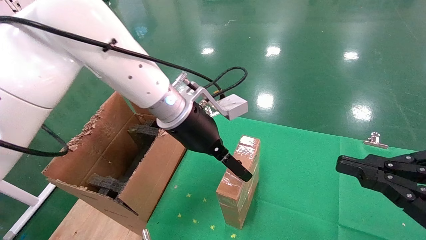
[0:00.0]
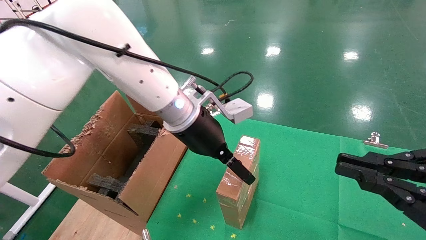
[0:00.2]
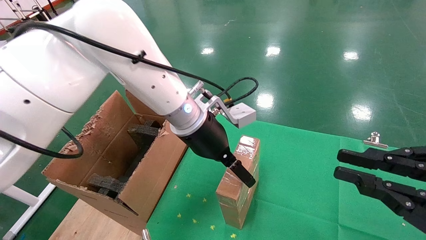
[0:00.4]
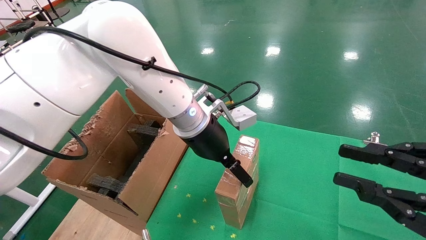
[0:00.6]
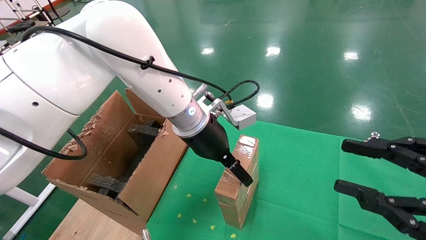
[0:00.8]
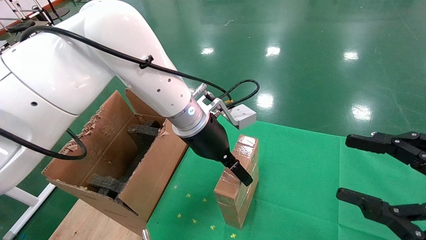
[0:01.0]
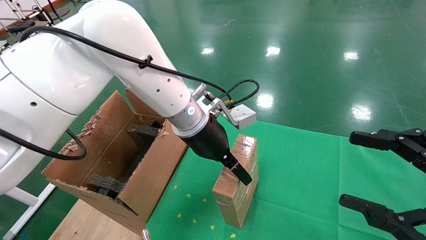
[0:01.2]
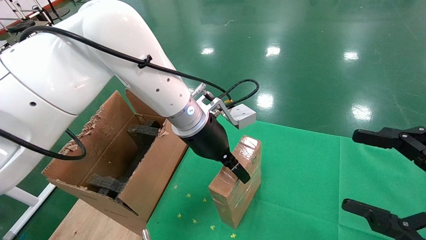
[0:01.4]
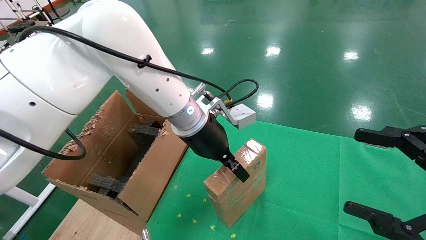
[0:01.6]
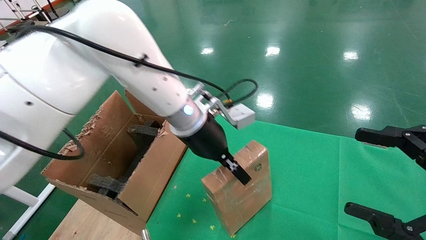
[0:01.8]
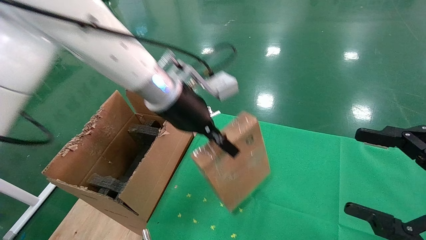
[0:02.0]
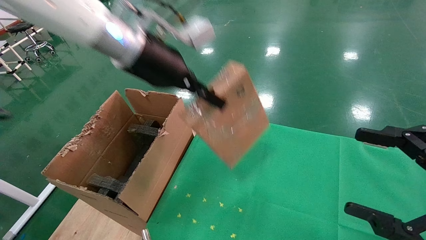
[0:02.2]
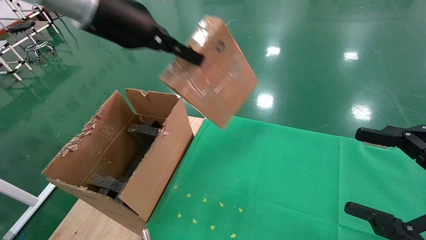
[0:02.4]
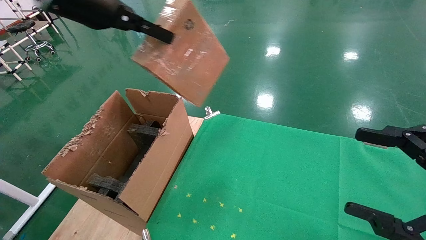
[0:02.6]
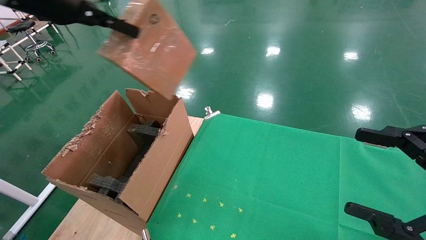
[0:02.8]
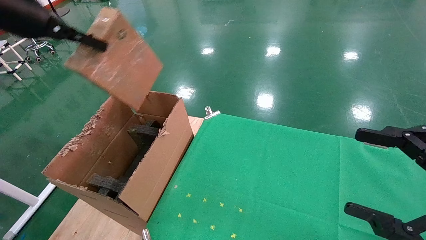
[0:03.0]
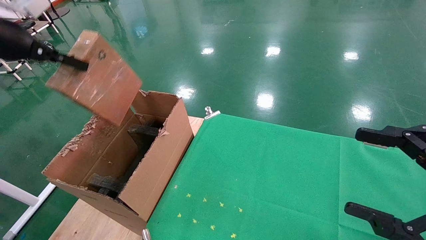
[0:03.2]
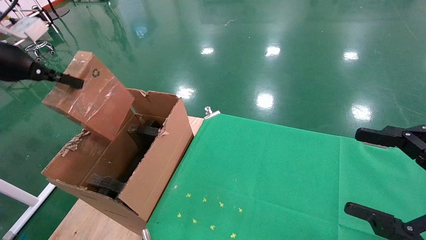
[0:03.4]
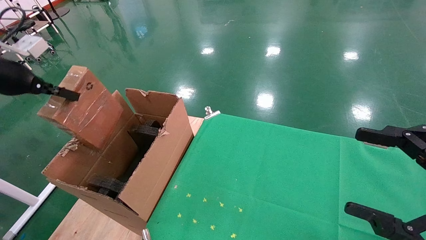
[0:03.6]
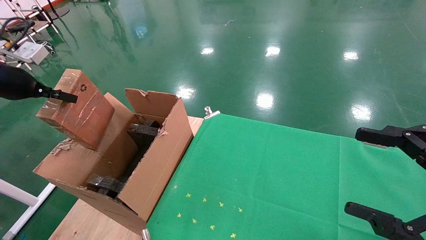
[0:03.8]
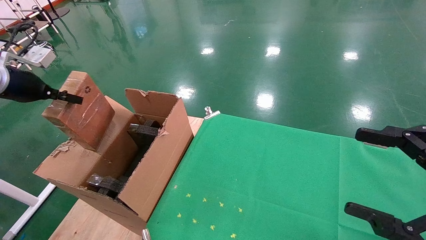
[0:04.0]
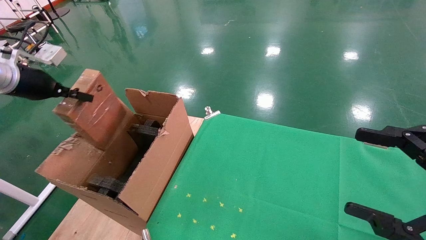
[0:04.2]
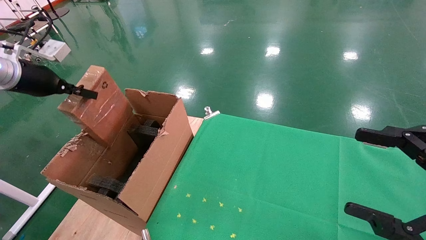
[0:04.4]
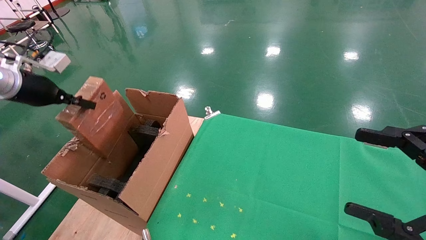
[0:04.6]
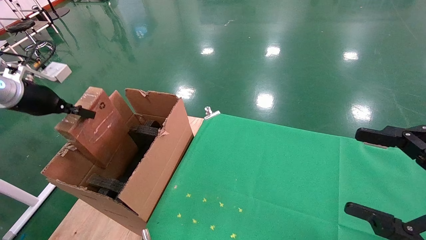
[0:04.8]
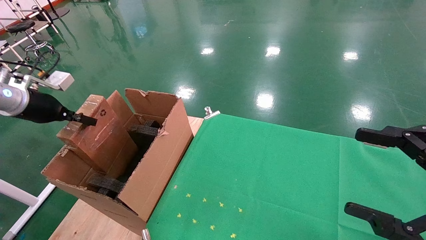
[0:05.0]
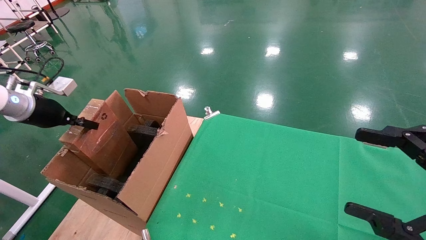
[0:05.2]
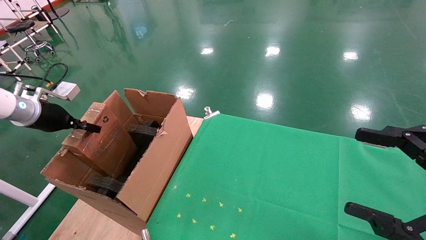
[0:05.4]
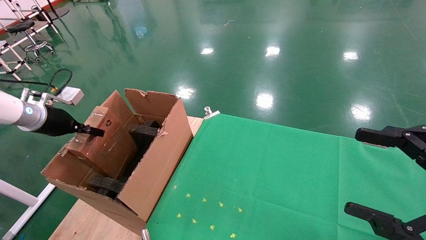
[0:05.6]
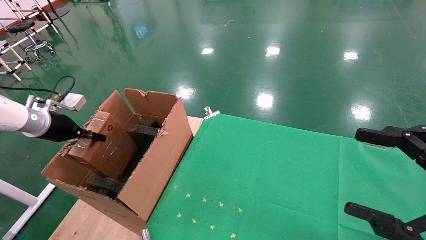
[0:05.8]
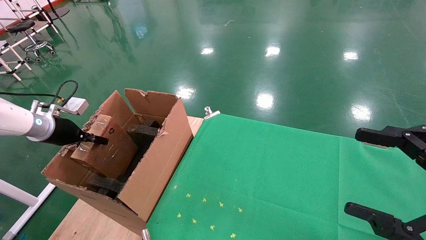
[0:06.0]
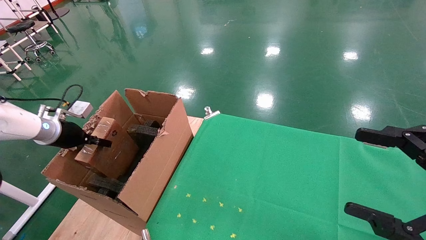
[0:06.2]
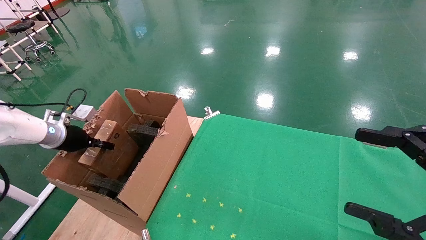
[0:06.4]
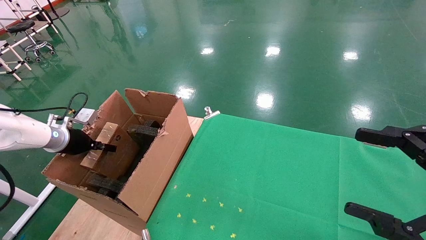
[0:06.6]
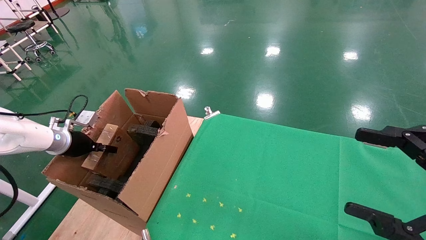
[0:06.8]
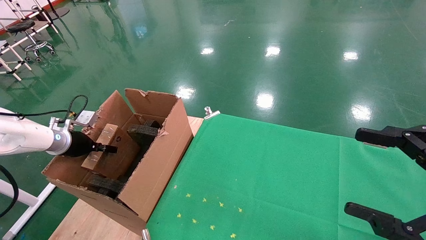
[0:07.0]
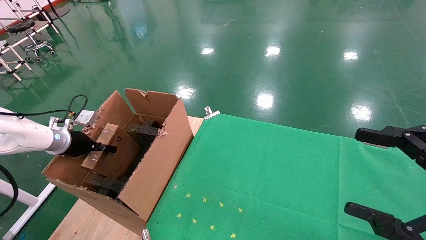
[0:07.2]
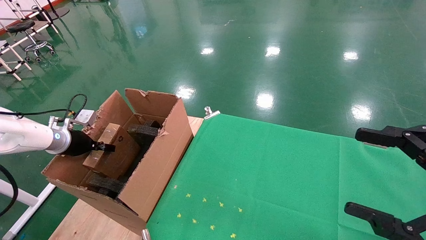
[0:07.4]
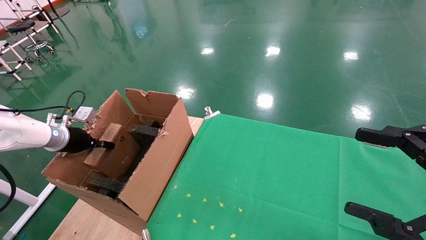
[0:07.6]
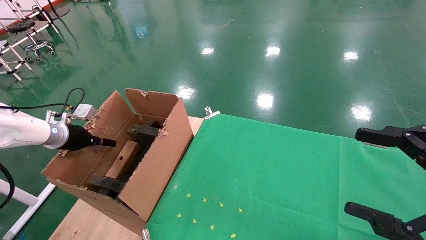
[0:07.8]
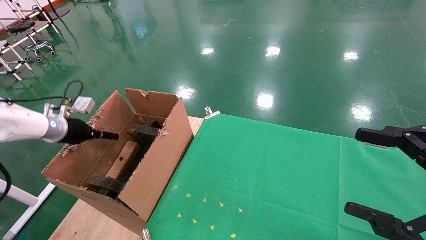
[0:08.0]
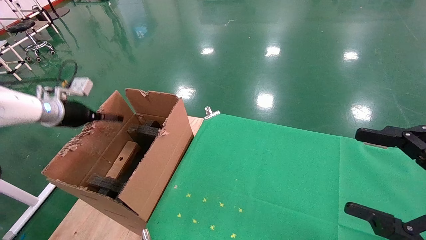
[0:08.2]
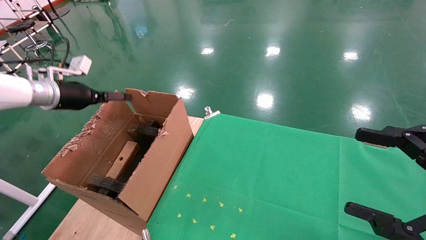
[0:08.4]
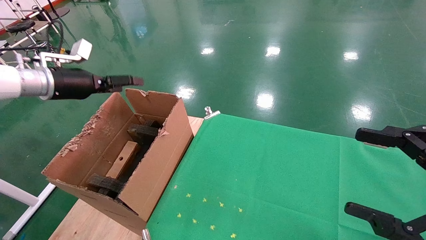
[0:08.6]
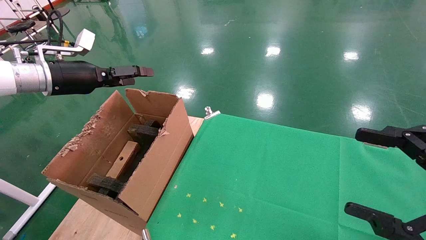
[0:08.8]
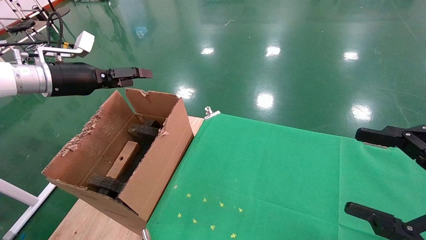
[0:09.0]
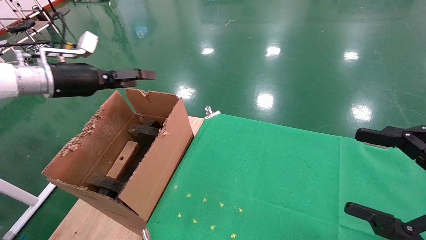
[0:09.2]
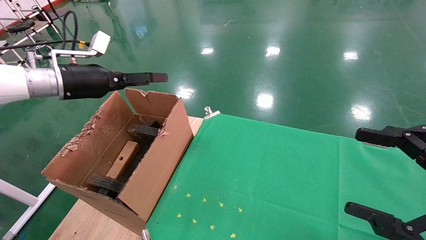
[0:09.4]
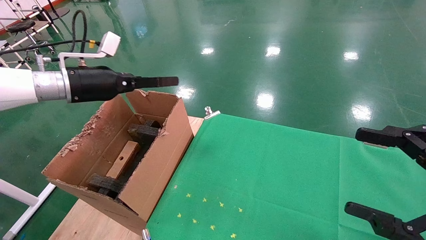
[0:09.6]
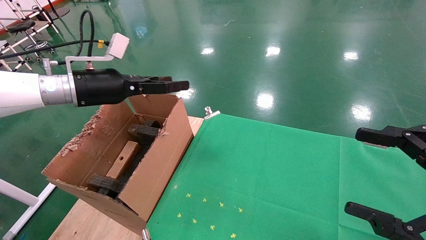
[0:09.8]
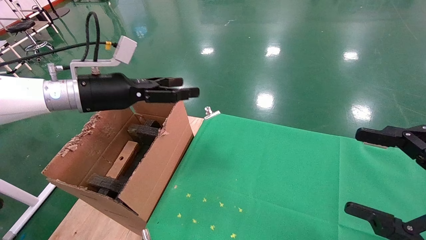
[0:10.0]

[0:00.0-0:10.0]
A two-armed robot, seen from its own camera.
Task of the whole recording: using a robotic arm to pick up a cardboard box and palace it the carton.
Step, 0:01.8 to 0:08.2: Place the mouse and the power cord paper box into the container.
0:00.0 to 0:01.4: The left gripper closes up. Meanwhile the right gripper opens.
0:01.4 to 0:02.8: The left gripper moves to the left and upward, roughly 35 cm, and closes up.
0:02.8 to 0:04.2: The left gripper is displaced to the left and downward by some 20 cm.
0:04.2 to 0:05.8: The left gripper travels downward by about 10 cm.
0:05.8 to 0:07.2: The left gripper heads downward, covering roughly 5 cm.
0:07.2 to 0:08.6: The left gripper travels upward by some 15 cm, and opens its fingers.
0:08.6 to 0:10.0: The left gripper shifts about 15 cm to the right.

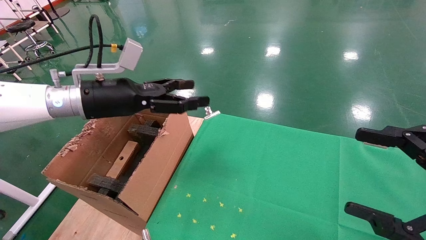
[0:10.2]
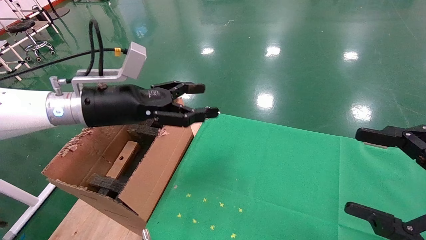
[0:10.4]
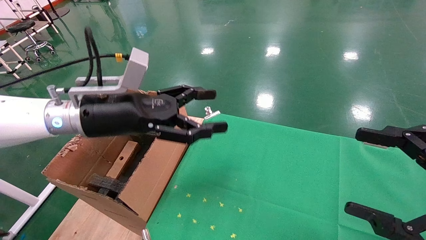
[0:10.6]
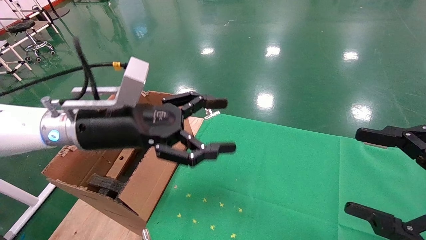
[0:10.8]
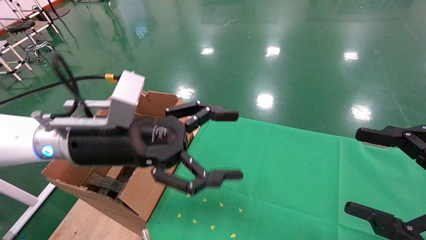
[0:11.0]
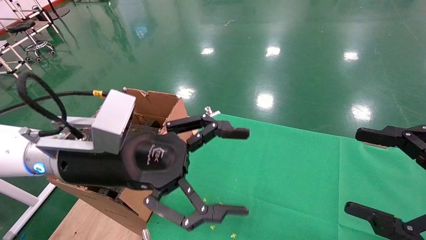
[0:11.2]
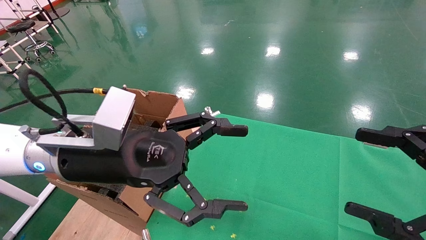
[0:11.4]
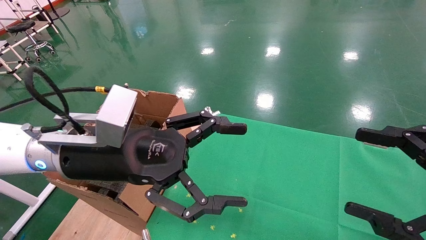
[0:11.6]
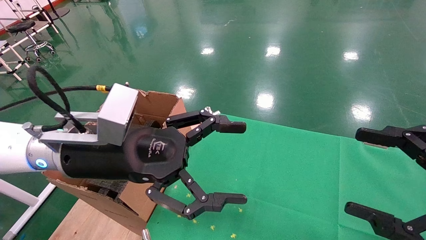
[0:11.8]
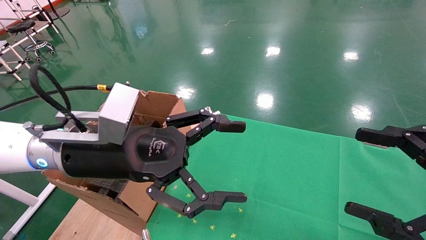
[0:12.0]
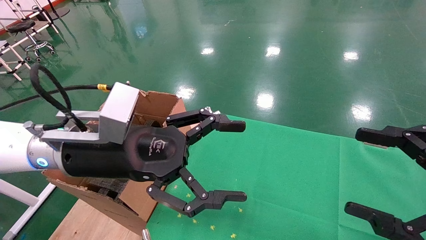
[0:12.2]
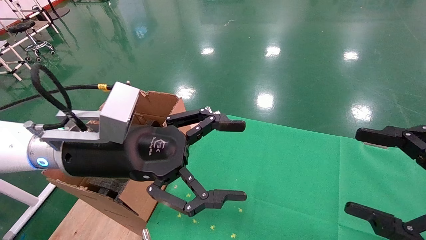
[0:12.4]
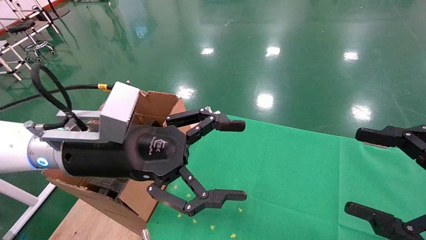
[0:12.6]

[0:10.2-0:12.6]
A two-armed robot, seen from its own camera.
Task of the whole recording: using a robotic arm to pick up a cardboard box and palace it the carton.
0:10.2 to 0:11.4: The left gripper heads backward and to the right, covering some 15 cm.
0:11.4 to 0:12.6: Both grippers stay about where they are.

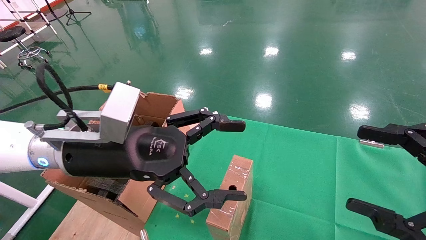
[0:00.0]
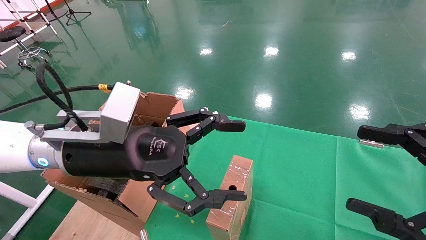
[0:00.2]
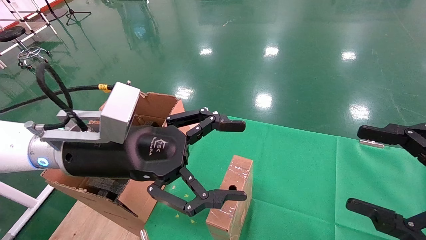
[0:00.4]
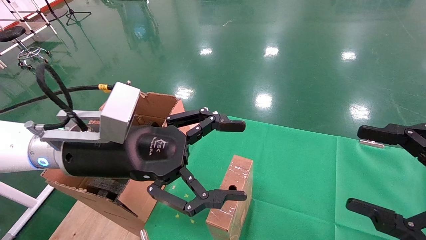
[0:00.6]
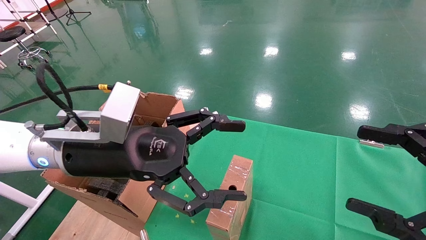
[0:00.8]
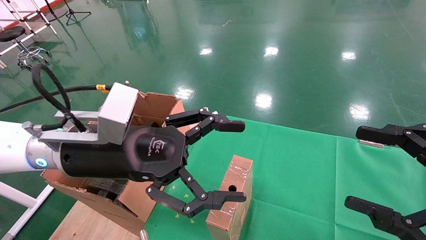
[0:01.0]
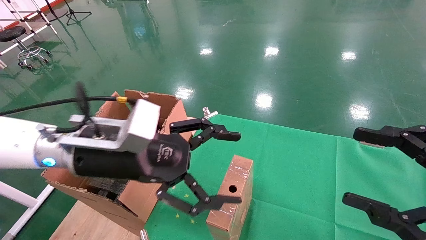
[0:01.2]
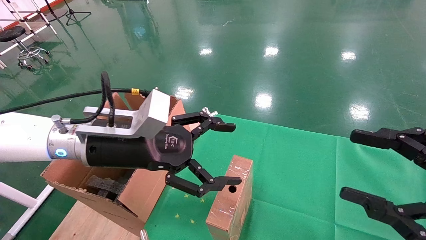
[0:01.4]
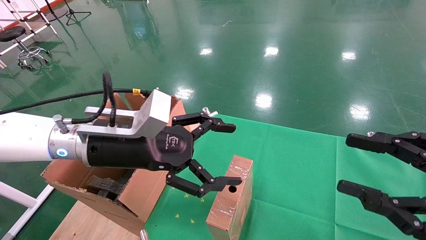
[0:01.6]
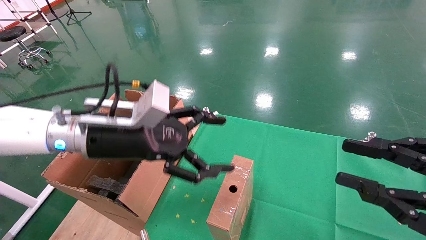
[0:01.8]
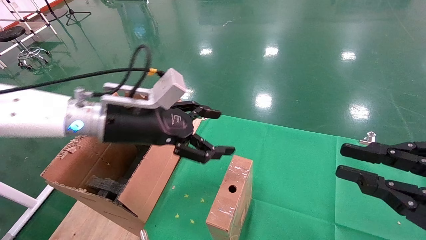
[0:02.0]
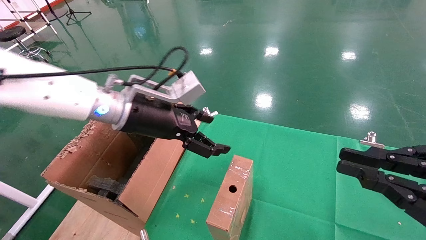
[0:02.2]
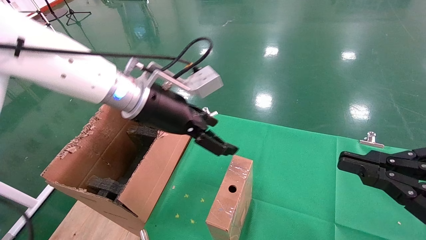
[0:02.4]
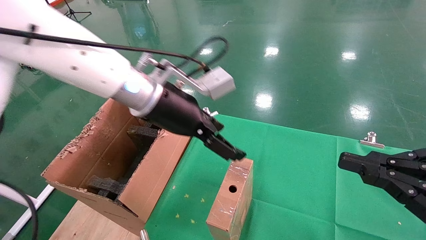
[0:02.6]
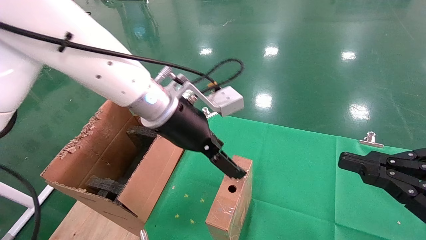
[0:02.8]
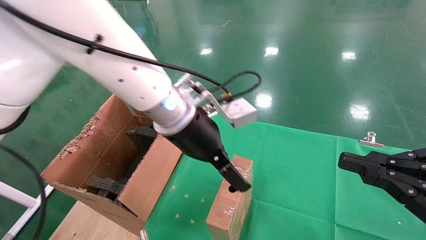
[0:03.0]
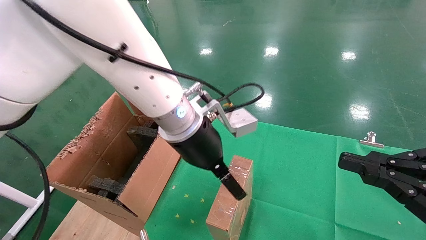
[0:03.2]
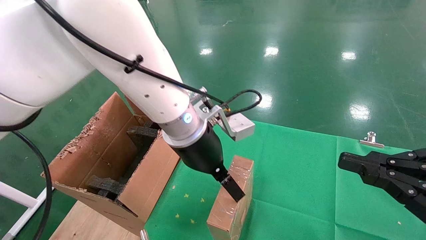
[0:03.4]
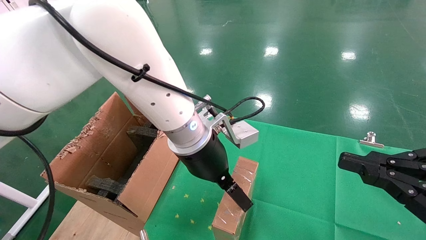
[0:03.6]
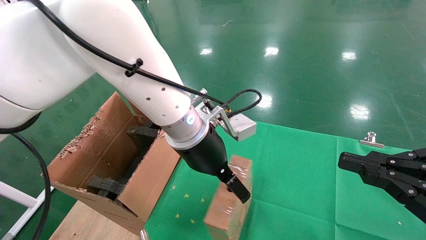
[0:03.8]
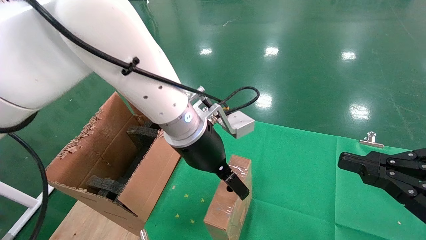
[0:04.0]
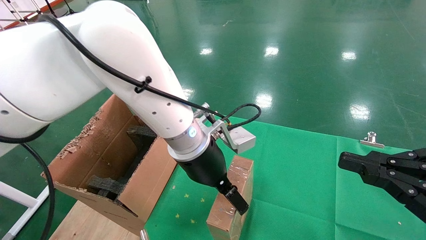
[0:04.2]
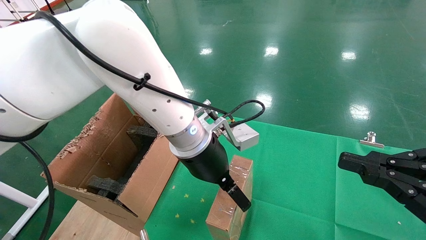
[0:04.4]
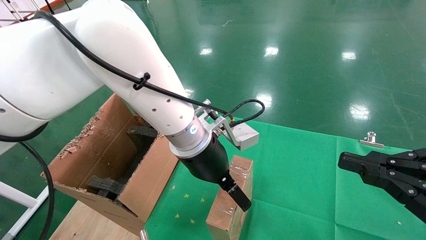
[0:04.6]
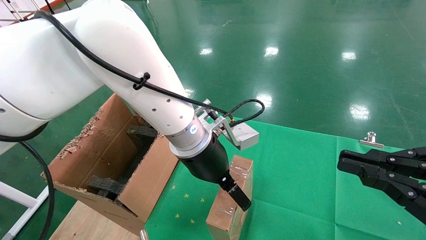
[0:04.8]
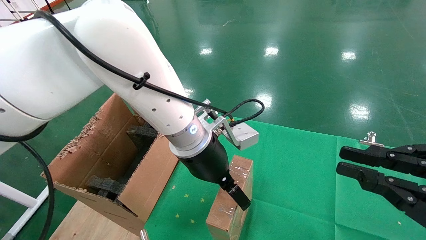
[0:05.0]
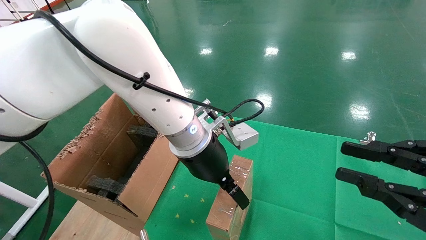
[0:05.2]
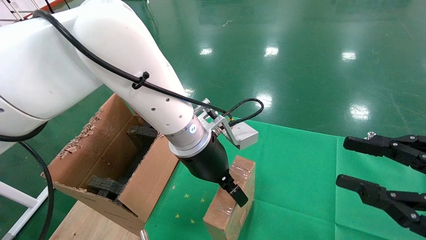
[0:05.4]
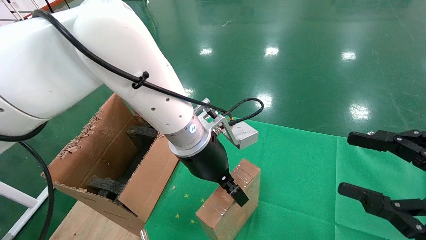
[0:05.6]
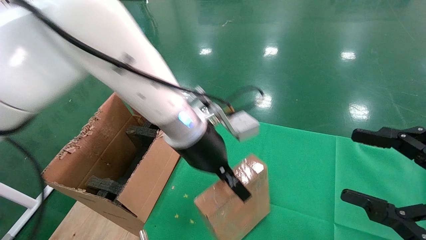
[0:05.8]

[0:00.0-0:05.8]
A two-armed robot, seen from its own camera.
Task of the whole recording: using a robotic arm to pick up a cardboard box and palace it the carton.
Step, 0:01.4 to 0:05.6: Pick up the mouse and the power cord paper box.
0:00.0 to 0:01.4: The grippers stay close to where they were, moving slightly.
0:01.4 to 0:02.8: The right gripper closes its fingers. Meanwhile the left gripper goes roughly 10 cm to the right and forward.
0:02.8 to 0:04.4: The left gripper changes place by approximately 5 cm.
0:04.4 to 0:05.8: The left gripper moves approximately 5 cm, and closes, while the right gripper opens up.
